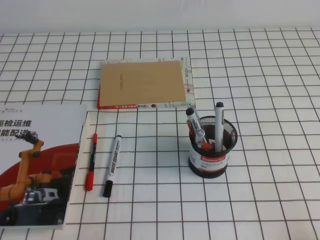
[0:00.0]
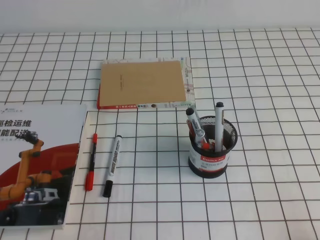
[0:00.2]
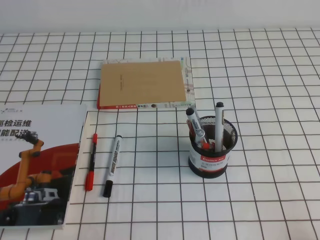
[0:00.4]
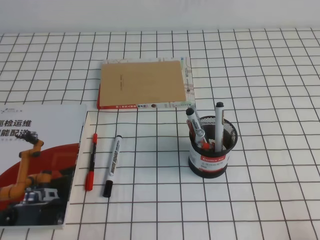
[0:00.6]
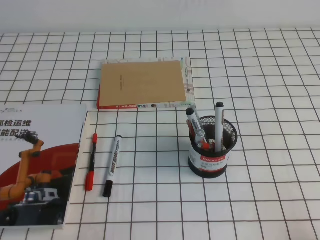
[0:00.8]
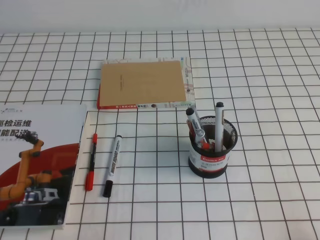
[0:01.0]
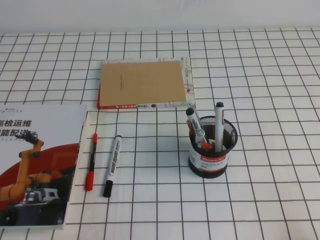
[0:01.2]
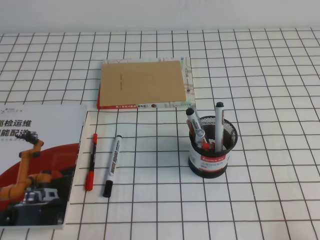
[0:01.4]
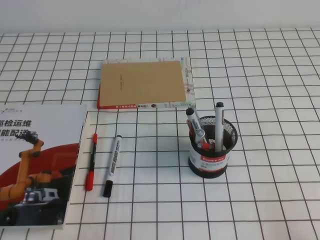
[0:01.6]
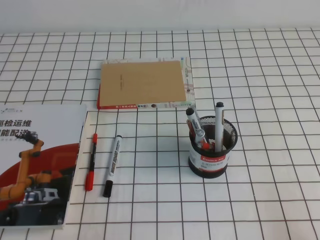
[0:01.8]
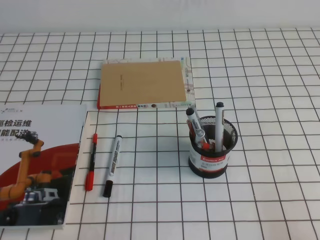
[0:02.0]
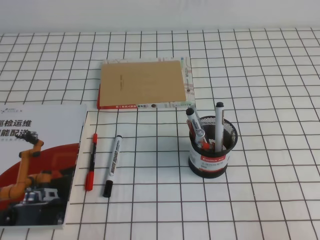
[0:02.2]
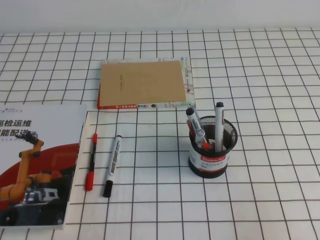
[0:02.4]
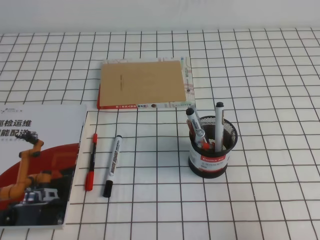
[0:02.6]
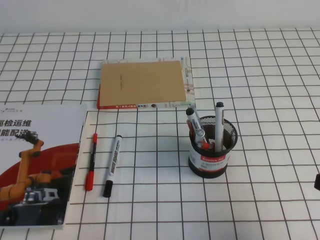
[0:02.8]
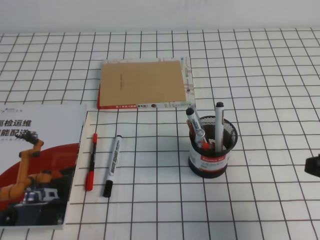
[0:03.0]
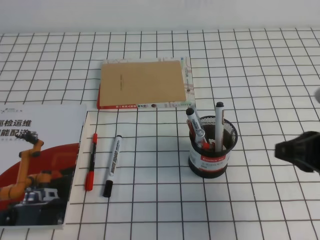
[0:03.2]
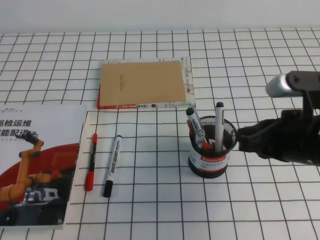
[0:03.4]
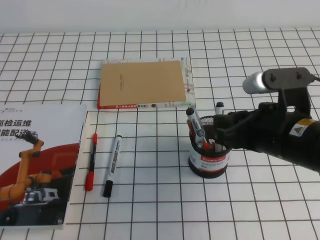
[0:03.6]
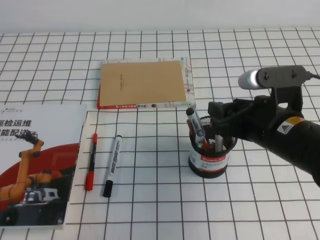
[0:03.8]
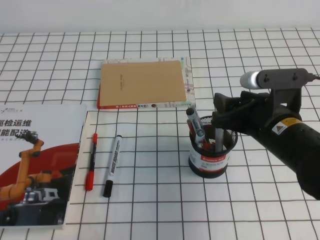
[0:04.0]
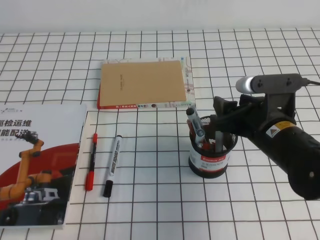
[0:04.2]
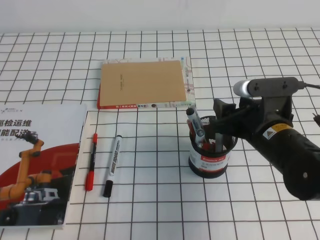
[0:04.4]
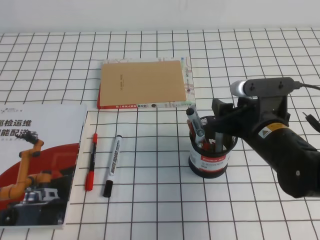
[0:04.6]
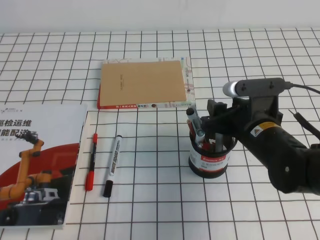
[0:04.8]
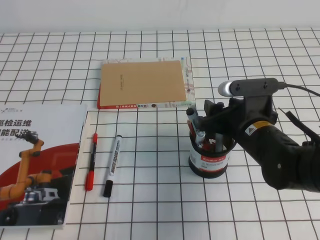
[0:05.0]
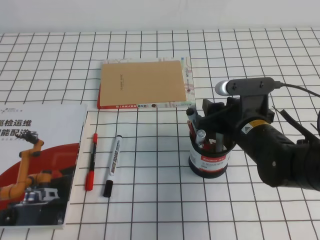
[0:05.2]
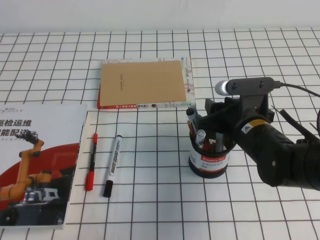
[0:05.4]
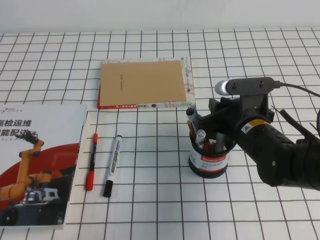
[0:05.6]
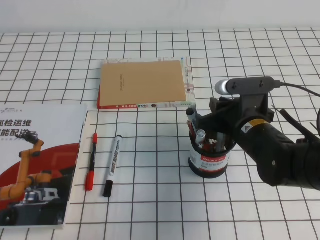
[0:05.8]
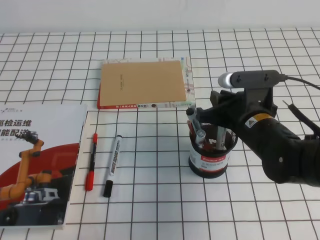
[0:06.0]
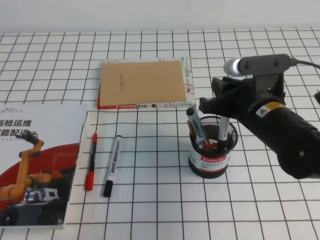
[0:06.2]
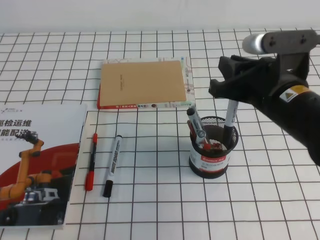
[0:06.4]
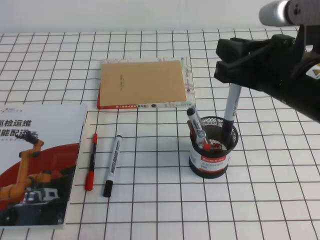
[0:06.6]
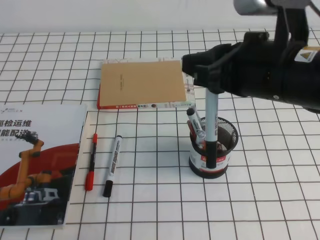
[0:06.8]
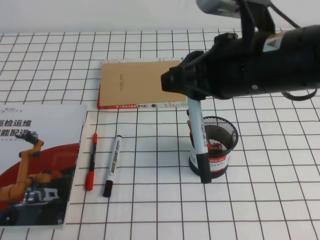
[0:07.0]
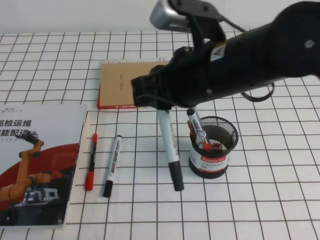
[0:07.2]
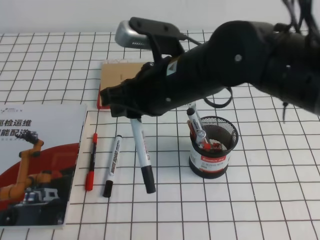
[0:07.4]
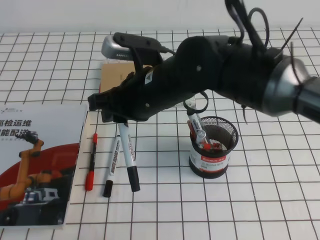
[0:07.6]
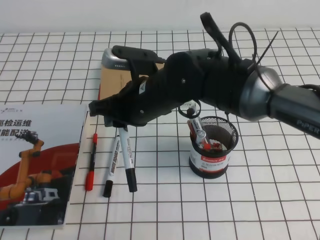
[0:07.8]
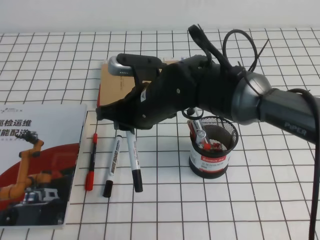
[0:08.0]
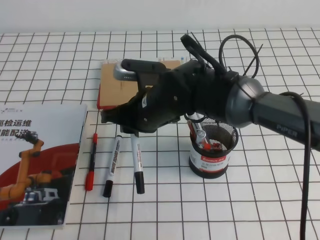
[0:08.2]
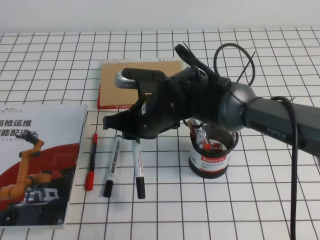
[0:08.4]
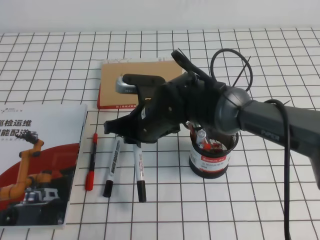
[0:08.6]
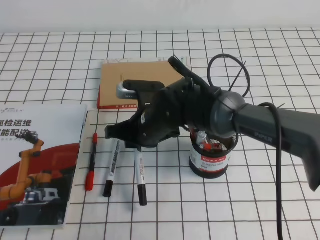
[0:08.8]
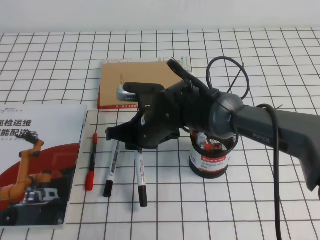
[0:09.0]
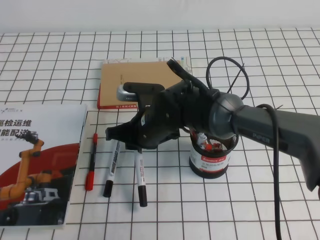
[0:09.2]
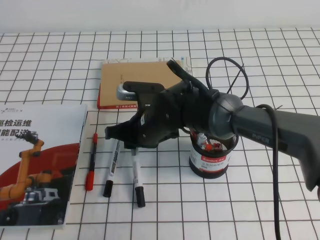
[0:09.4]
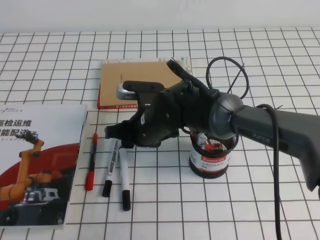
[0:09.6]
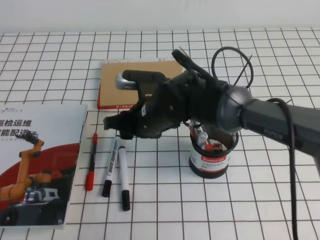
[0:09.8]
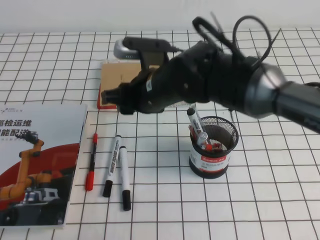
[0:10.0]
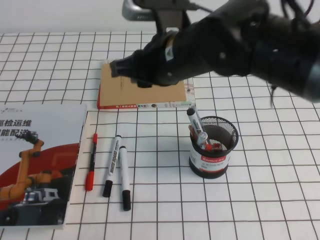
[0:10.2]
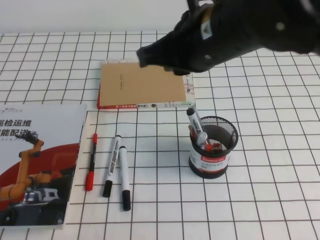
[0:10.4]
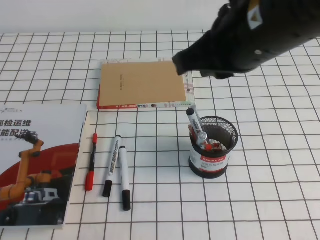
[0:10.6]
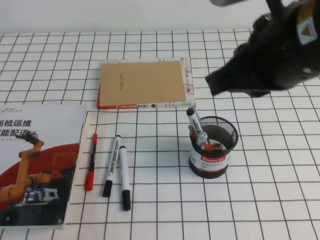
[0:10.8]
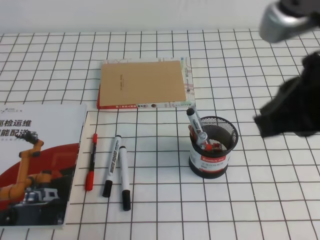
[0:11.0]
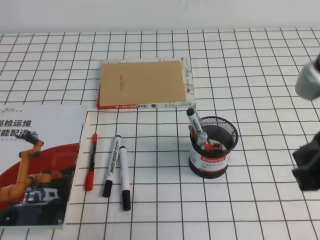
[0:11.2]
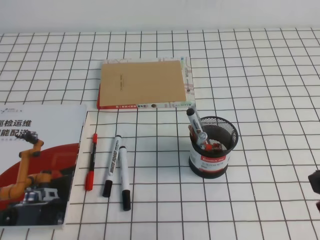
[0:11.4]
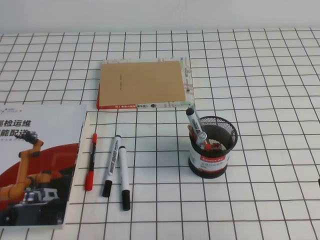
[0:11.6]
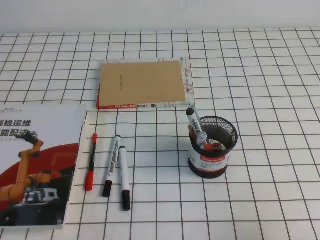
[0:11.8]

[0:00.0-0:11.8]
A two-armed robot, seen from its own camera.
0:01.4 to 0:03.0: The right gripper is displaced forward and upward by about 15 cm.
0:03.0 to 0:04.4: The right gripper is displaced to the left, forward and downward by roughly 15 cm, and opens up.
0:04.4 to 0:06.0: The right gripper closes its fingers.
0:06.0 to 0:07.4: The right gripper heads upward and to the left, covering approximately 15 cm.
0:07.4 to 0:08.8: The right gripper shifts roughly 15 cm downward and forward.
0:08.8 to 0:10.4: The right gripper is displaced upward and to the right by some 20 cm, and opens, then closes once more.
0:10.4 to 0:11.8: The right gripper shifts some 30 cm to the right, backward and downward.
